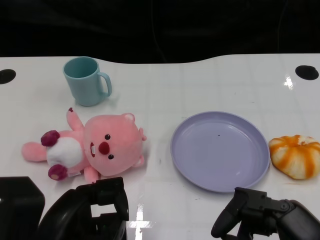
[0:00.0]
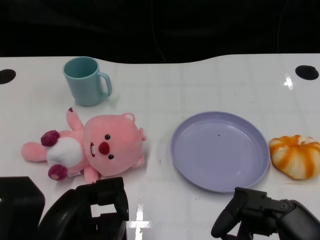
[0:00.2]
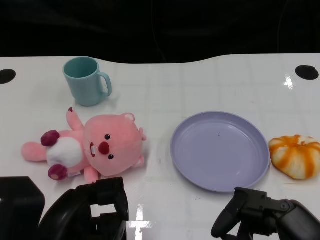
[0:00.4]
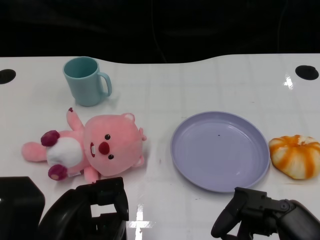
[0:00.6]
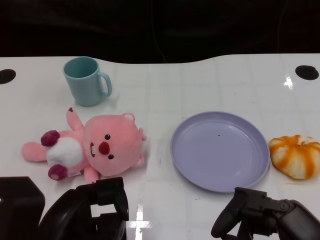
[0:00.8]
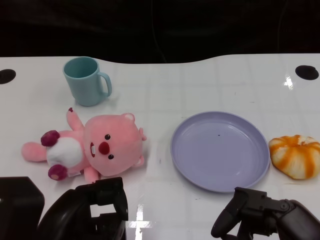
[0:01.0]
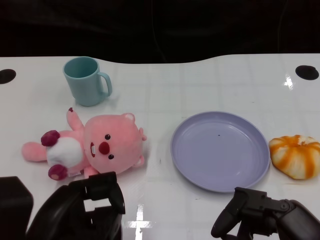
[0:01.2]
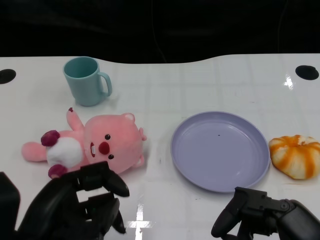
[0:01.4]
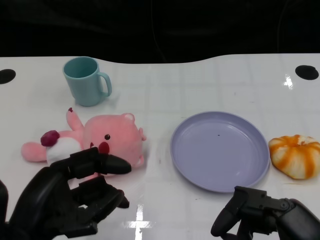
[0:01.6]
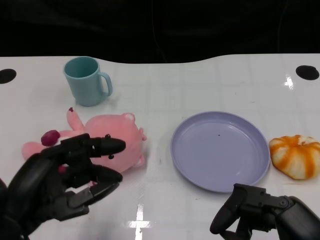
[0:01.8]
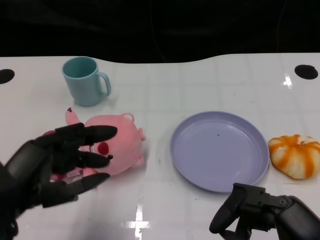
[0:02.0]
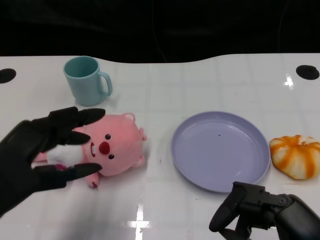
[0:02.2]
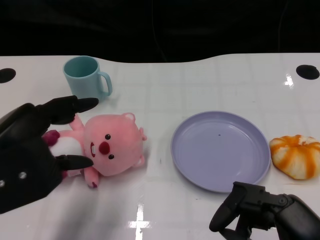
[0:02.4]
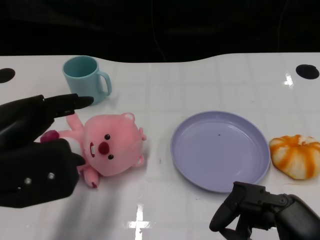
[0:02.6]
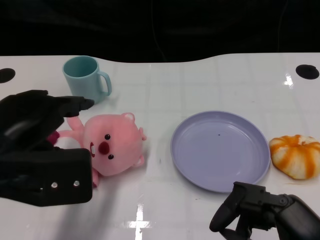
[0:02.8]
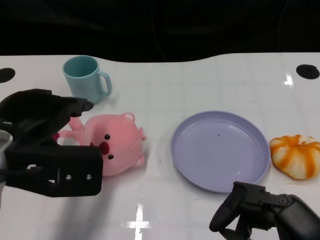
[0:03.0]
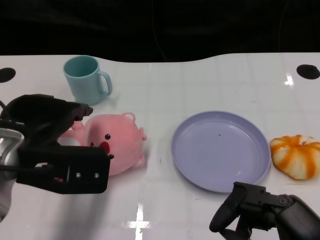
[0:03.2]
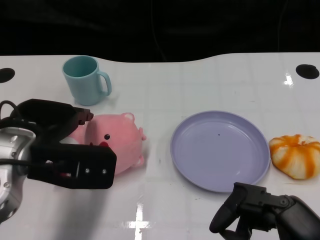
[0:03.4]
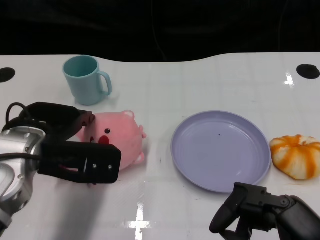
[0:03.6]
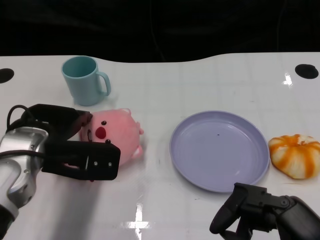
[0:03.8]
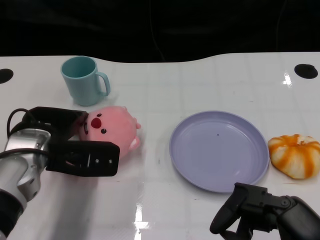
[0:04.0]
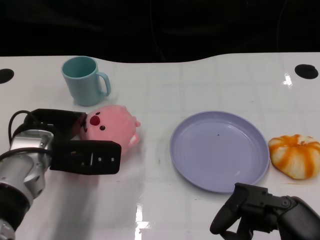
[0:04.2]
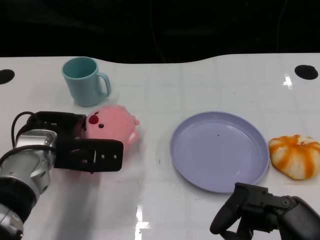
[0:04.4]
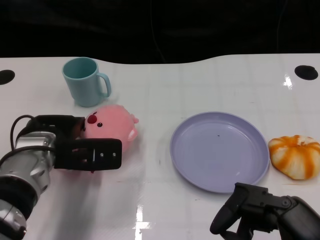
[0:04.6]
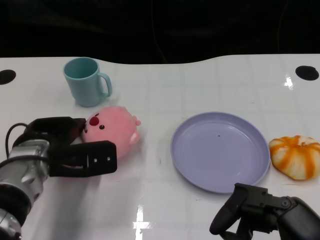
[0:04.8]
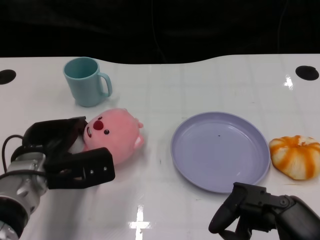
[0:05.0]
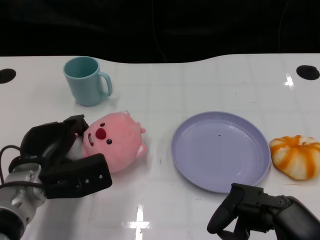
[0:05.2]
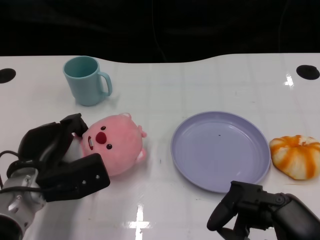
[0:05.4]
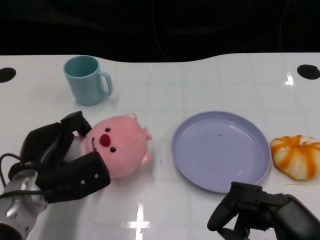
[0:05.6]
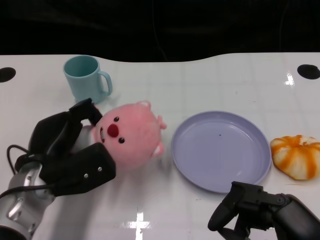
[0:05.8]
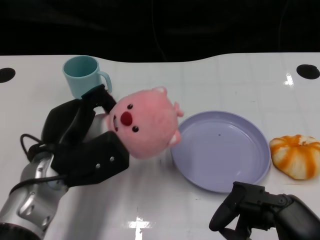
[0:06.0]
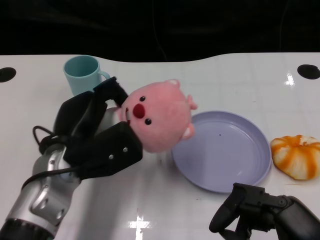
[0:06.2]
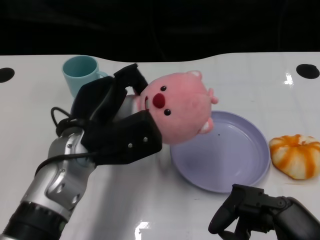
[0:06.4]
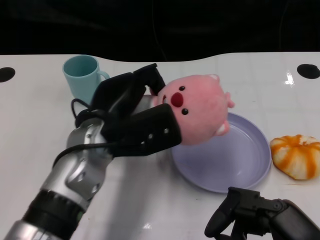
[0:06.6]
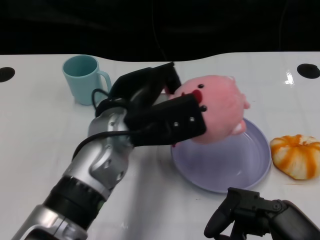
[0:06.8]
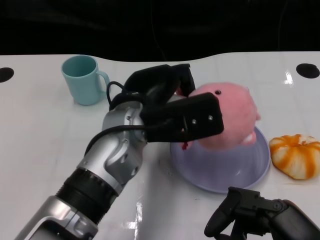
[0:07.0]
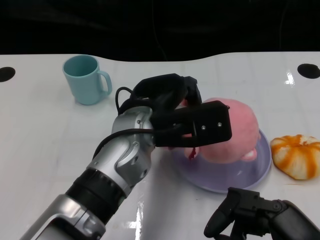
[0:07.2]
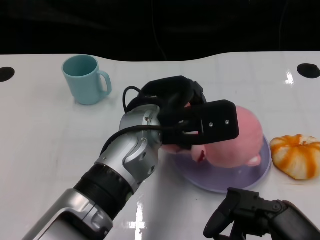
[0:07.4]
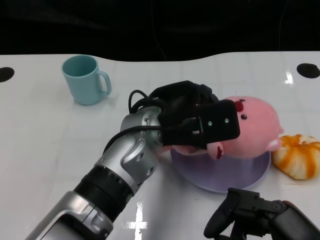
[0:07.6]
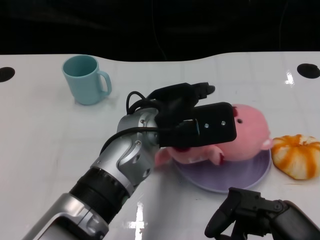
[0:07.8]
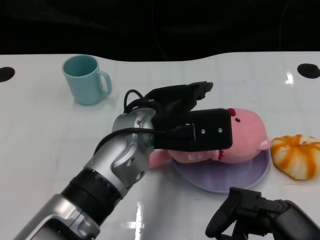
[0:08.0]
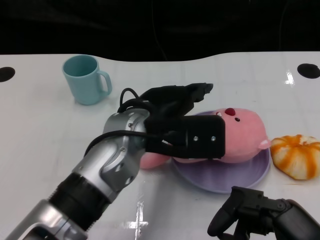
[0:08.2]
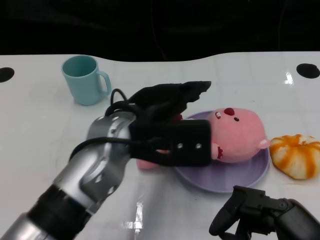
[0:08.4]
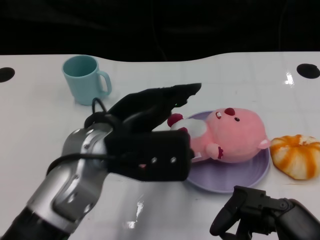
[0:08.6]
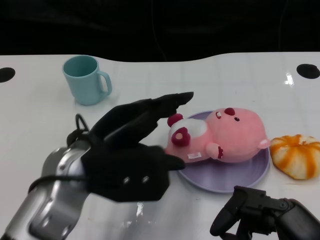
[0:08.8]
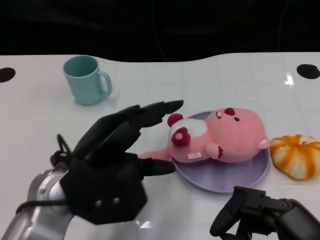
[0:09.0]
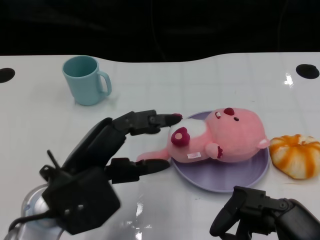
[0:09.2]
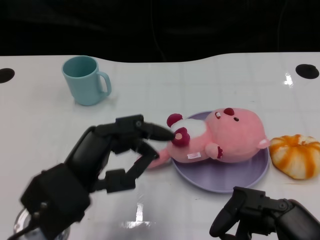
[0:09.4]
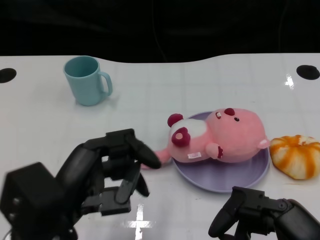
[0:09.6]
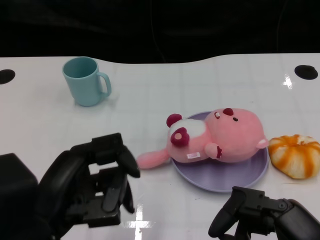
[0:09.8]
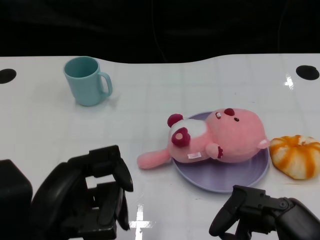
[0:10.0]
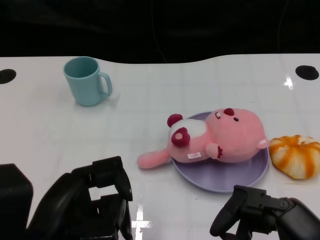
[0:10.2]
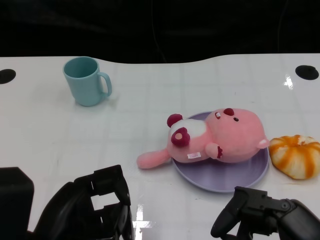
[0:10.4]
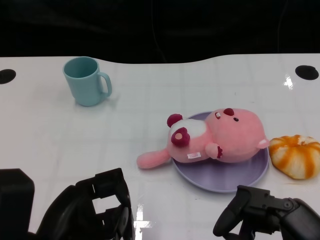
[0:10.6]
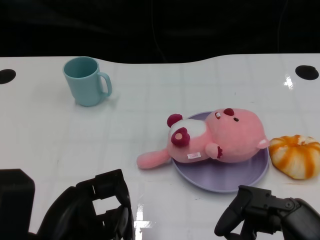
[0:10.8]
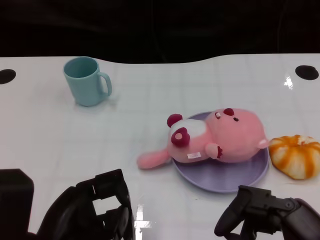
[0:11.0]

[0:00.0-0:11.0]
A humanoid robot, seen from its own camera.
Task of the whole recording: Pick up the doll on one side of the plate and place it into the plate.
Step, 0:01.0 to 0:05.6: Grasp the pink doll with the left gripper.
Step, 0:06.0 to 0:08.0: Place the pink doll into the plate with the left gripper.
0:01.6 to 0:03.2: The left hand shifts about 10 cm forward and upward.
0:03.2 to 0:04.8: The left hand heads downward and forward, covering about 10 cm.
0:04.8 to 0:06.2: The left hand shifts by approximately 5 cm.
0:06.2 to 0:07.8: The left hand heads to the right, covering about 10 cm.
0:07.8 to 0:09.4: The left hand shifts some 15 cm to the left and backward.
0:09.4 to 0:11.0: The left hand shifts some 5 cm backward.

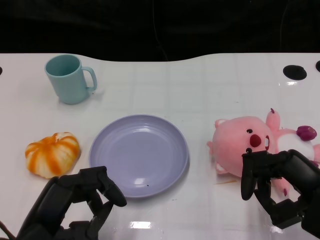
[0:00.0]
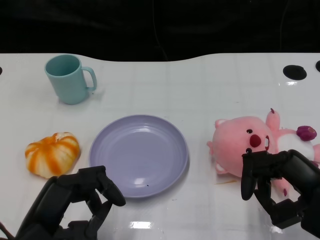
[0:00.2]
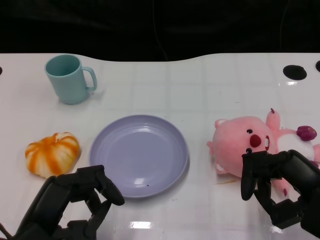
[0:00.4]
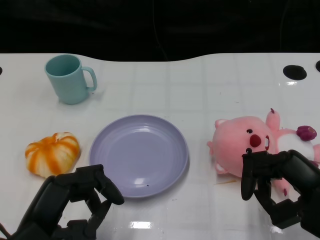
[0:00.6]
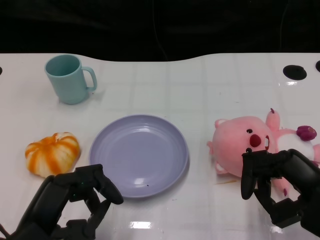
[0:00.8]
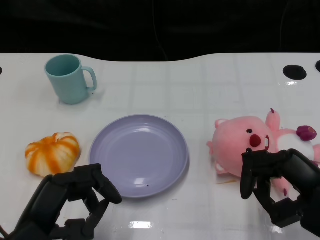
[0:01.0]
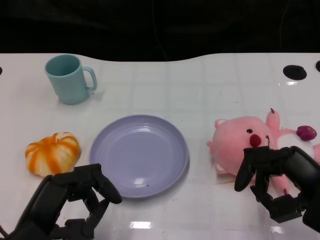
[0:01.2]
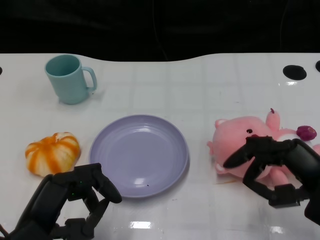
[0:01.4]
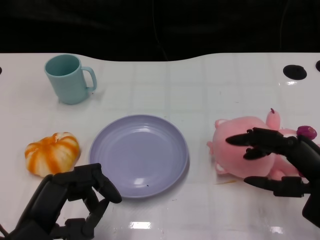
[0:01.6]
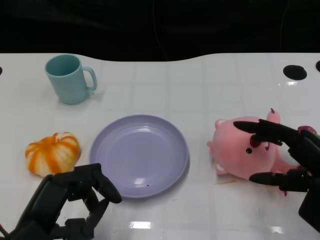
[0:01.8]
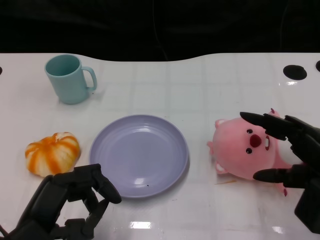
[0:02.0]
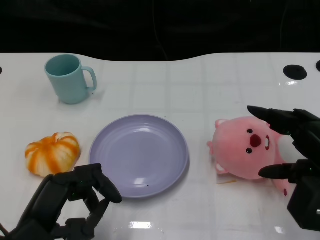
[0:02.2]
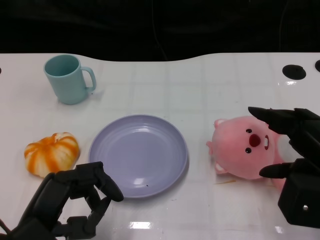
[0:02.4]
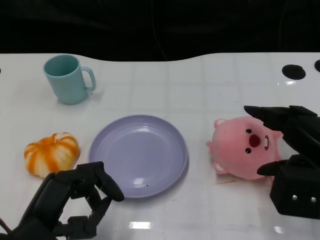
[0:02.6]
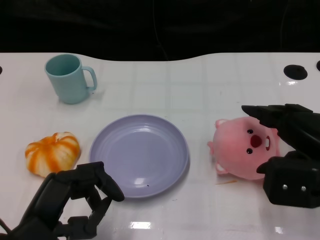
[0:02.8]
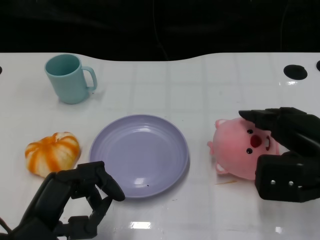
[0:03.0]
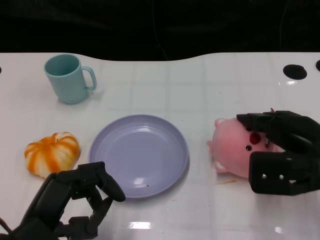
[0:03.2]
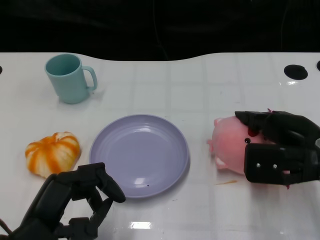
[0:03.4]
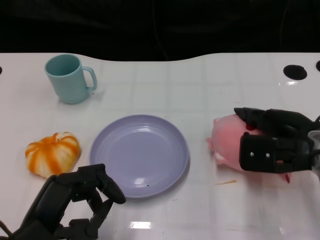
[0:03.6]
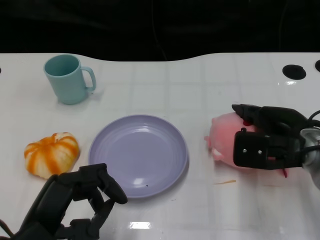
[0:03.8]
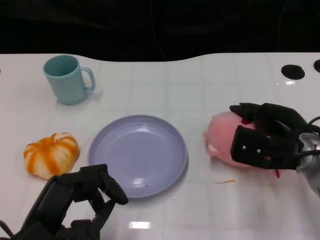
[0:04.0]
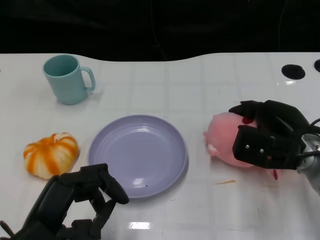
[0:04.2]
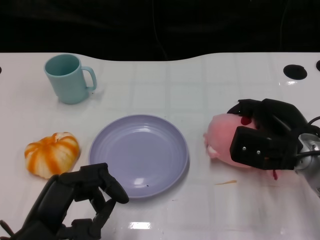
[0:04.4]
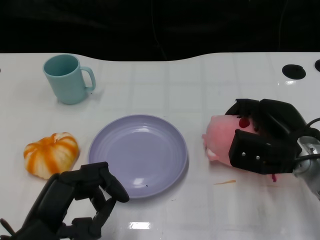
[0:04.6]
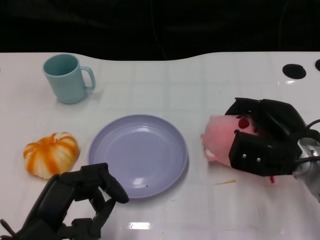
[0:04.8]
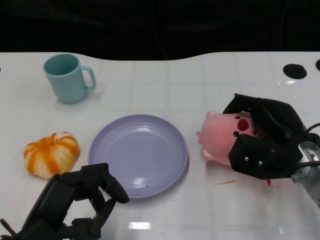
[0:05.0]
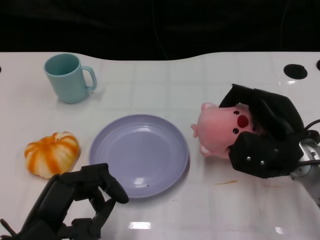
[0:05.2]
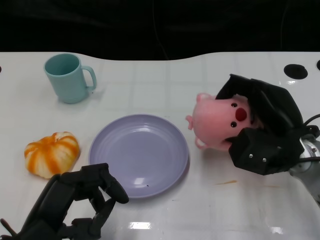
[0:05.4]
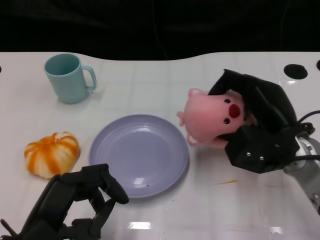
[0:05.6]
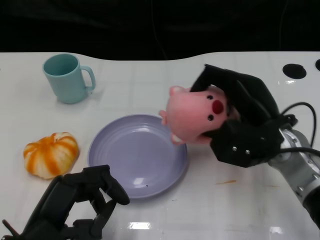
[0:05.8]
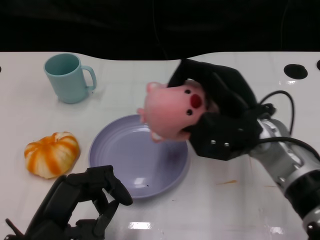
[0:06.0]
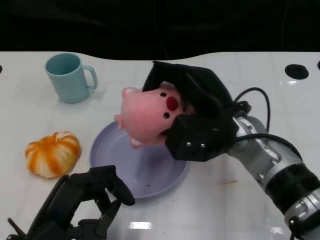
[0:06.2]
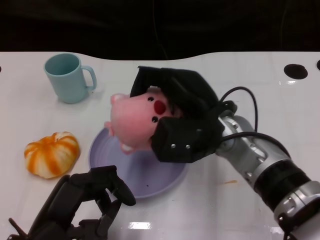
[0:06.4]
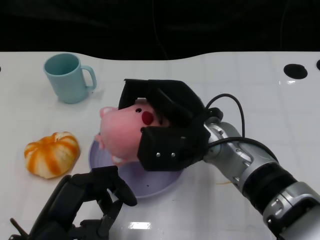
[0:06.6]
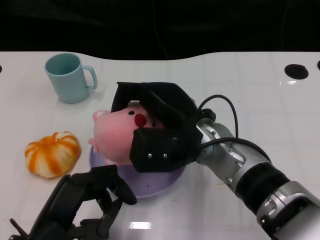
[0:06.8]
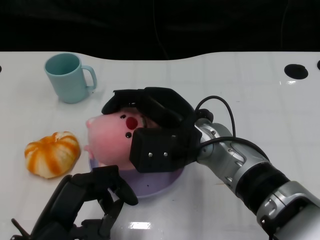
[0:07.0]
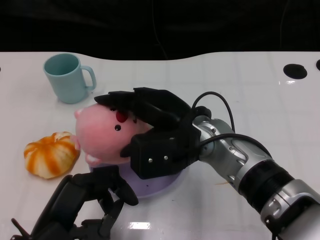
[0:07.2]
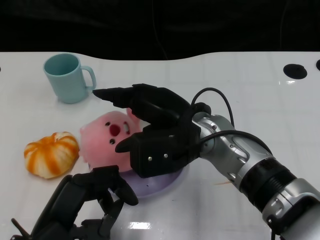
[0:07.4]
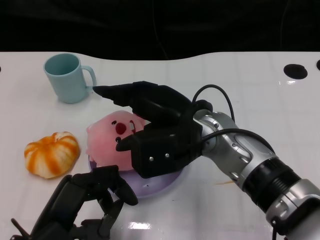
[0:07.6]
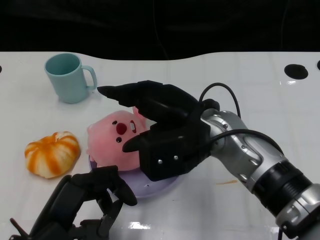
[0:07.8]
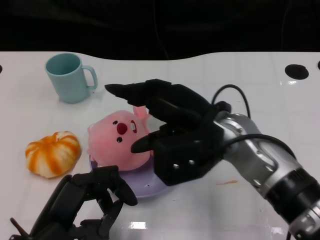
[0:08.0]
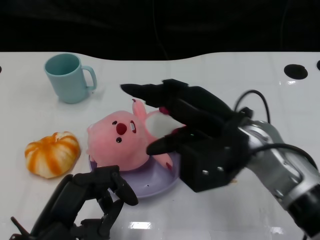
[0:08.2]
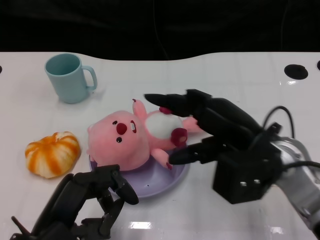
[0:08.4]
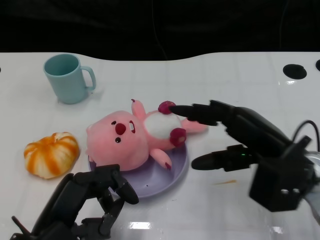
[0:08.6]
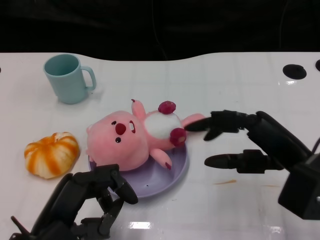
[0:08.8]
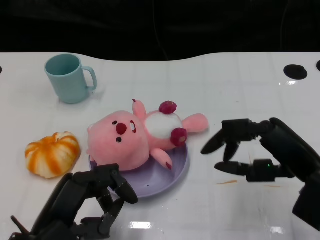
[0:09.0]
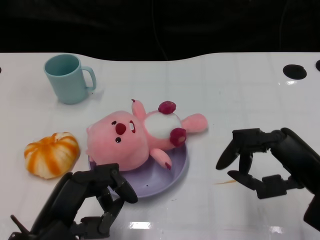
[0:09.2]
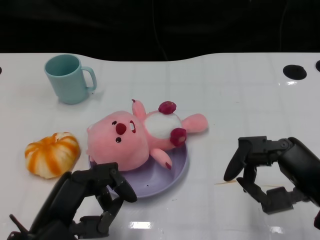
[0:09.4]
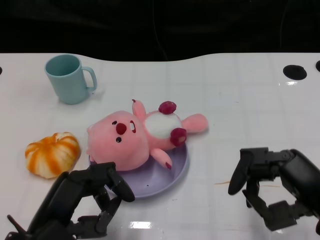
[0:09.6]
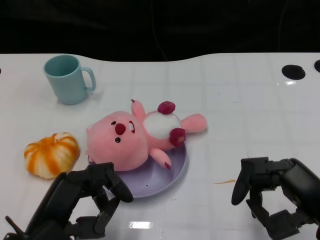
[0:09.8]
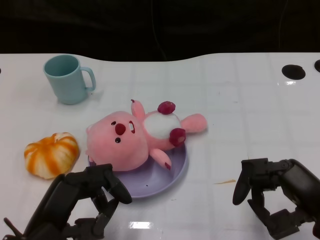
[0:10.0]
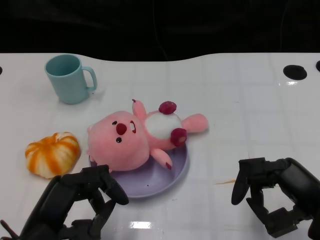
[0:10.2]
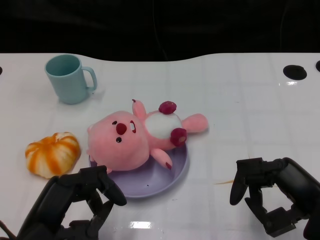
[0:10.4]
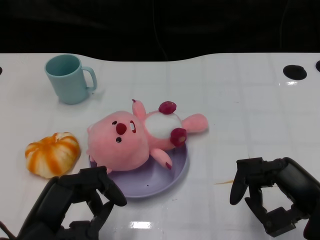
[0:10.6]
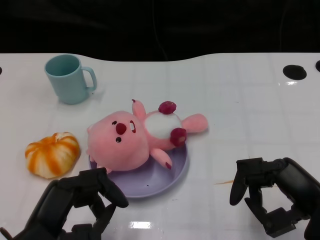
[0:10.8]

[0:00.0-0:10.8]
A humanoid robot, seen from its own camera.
Task of the whole recording: Pick up the doll on the other side of the plate and place it into the plate.
Step, 0:01.0 to 0:05.8: Grasp the pink doll with the right gripper.
Step, 0:06.2 to 0:08.4: Place the pink doll into the plate with the right gripper.
0:01.6 to 0:03.0: The right hand shifts by roughly 5 cm.
0:03.0 to 0:04.6: The right hand heads downward and forward, covering some 10 cm.
0:04.6 to 0:06.2: The right hand is displaced to the left and upward by approximately 10 cm.
0:07.8 to 0:09.2: The right hand moves to the right and backward, some 20 cm.
0:09.2 to 0:10.8: There are only small adjustments of the hands.
